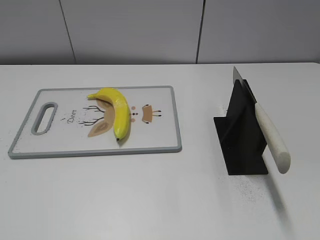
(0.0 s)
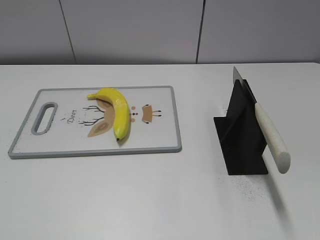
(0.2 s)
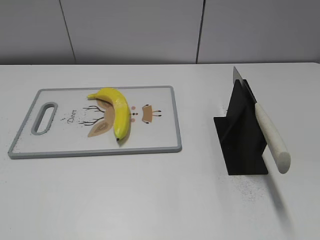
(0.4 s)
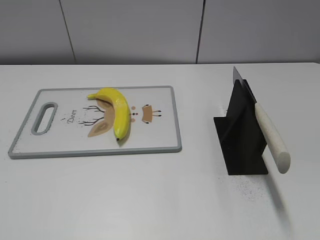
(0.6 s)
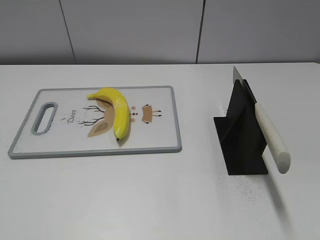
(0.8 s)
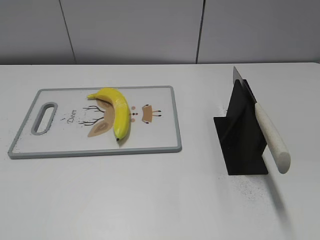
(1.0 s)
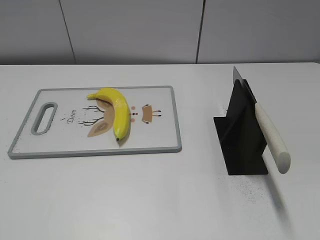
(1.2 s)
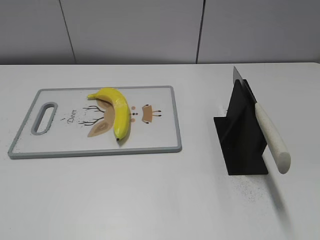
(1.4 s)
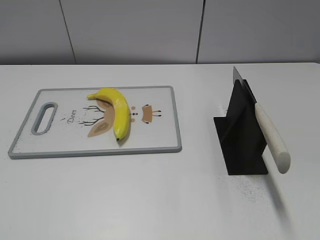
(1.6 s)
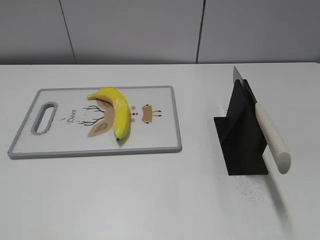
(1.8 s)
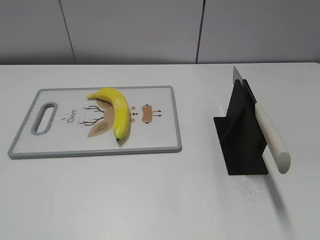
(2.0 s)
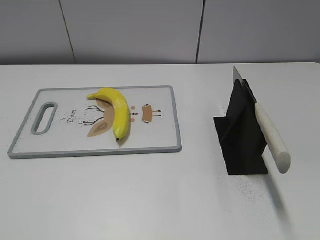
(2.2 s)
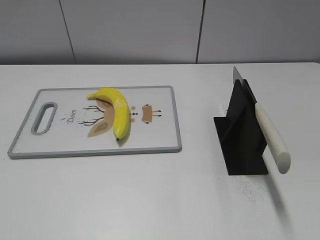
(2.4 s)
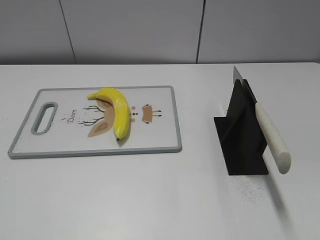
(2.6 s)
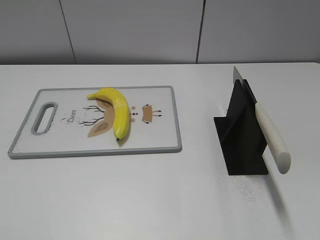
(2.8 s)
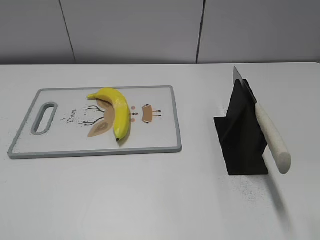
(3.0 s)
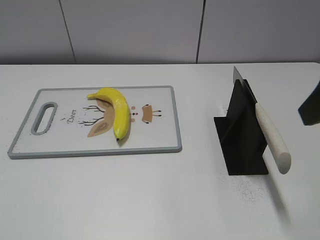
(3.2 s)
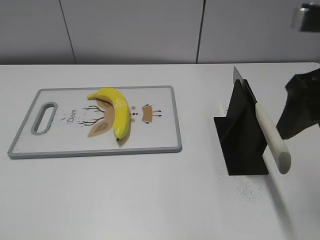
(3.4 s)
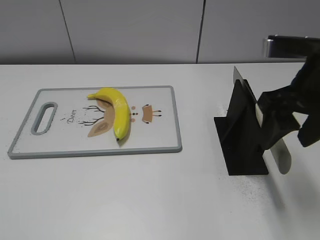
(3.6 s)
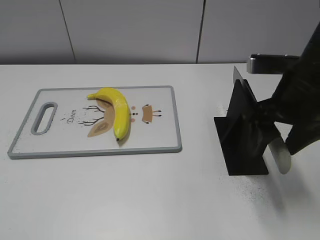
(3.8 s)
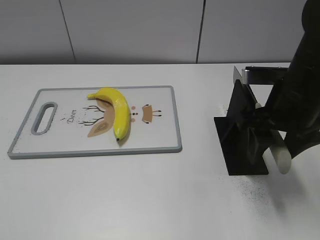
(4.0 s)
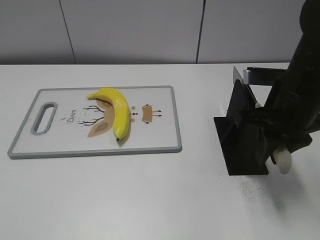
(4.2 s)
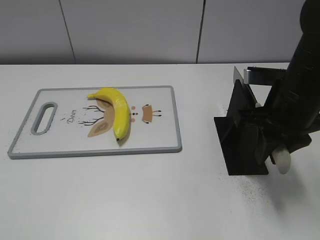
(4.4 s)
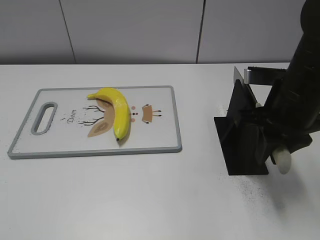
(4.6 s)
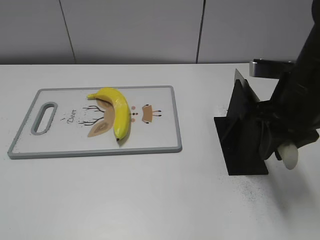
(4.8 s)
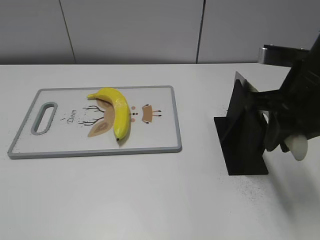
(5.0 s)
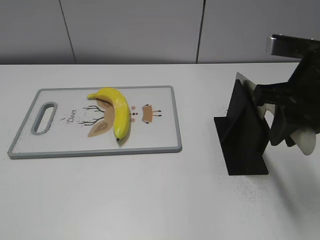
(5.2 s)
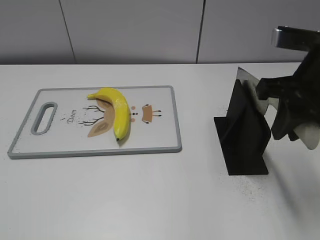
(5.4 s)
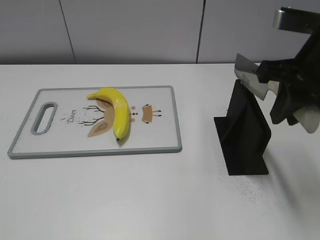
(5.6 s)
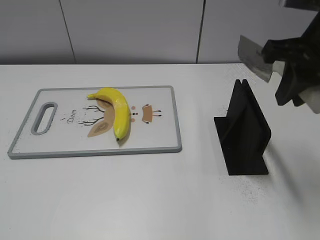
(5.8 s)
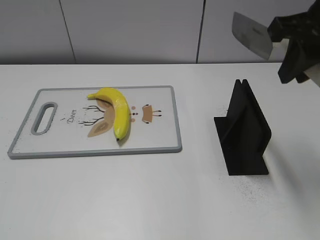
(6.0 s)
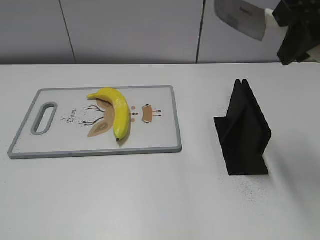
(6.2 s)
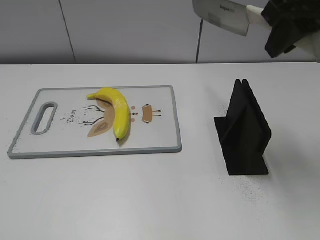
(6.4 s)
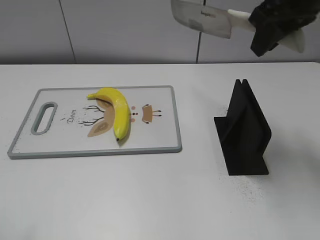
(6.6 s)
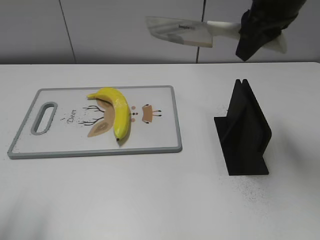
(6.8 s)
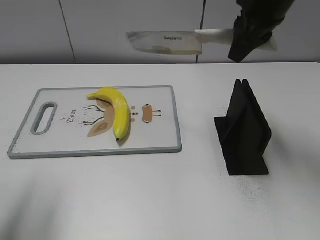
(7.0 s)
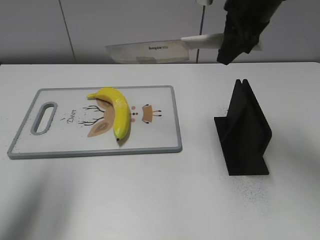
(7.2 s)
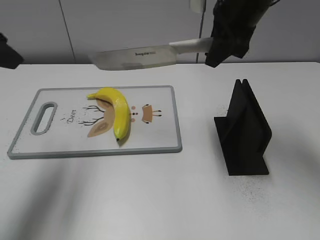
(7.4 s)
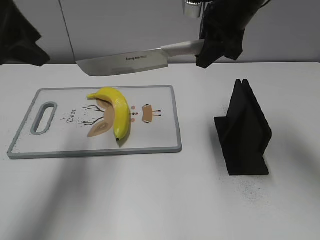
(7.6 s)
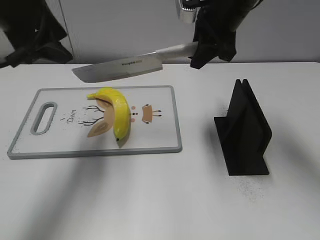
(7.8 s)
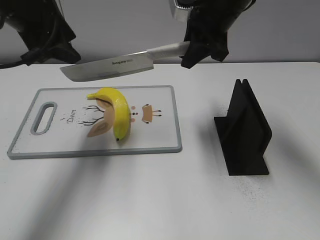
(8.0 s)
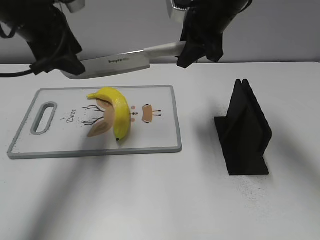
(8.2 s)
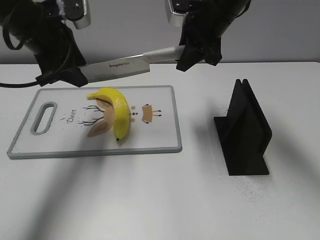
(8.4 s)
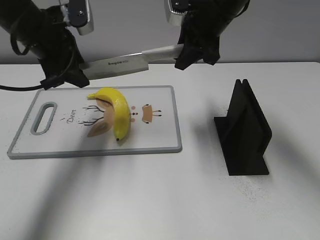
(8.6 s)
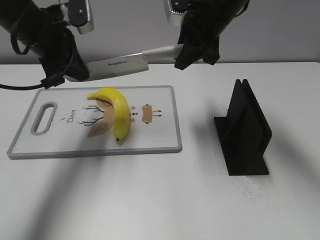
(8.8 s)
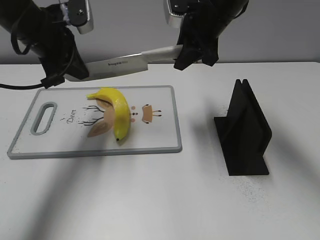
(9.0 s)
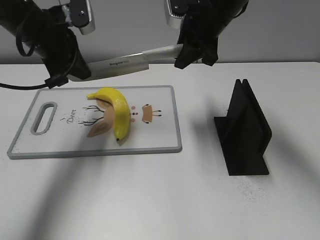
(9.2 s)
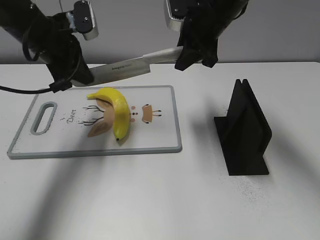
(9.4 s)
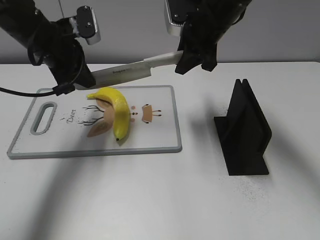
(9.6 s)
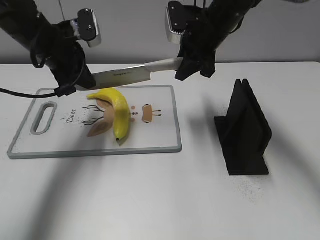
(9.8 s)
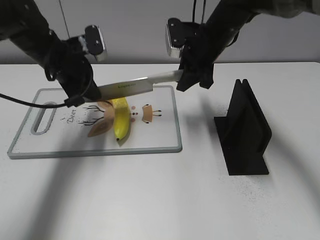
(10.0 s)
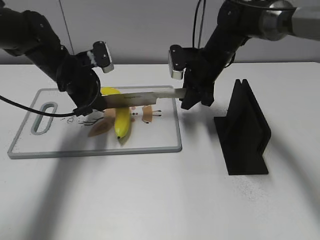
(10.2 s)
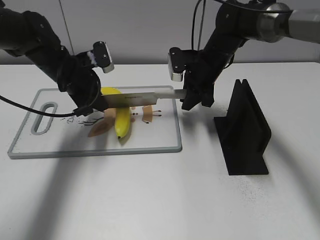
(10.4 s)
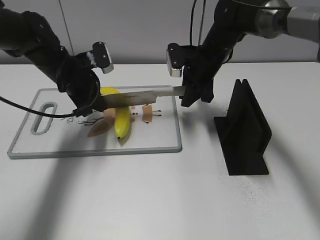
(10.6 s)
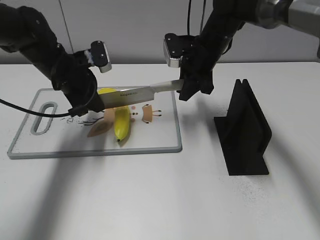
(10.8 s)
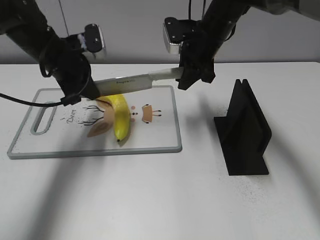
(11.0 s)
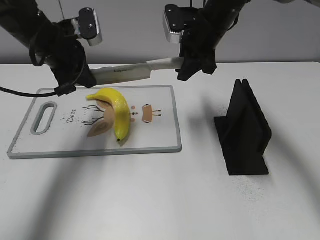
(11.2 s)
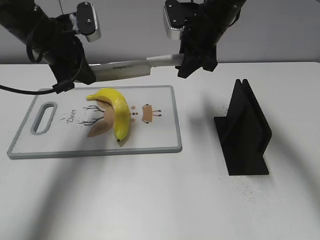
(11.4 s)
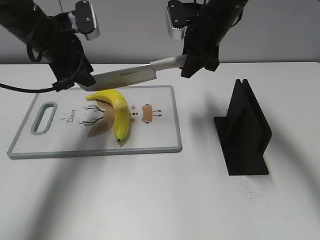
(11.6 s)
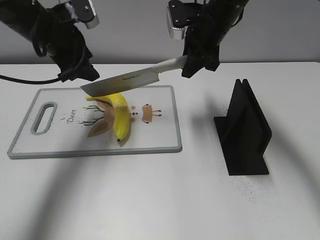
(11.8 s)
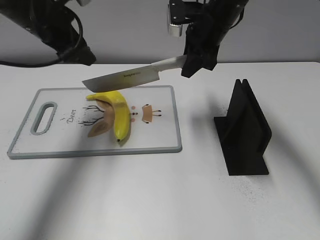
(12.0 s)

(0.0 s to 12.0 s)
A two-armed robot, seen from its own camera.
Task of the whole recording: cut plastic banana.
Step, 0.0 s - 5.6 s: Grab the knife handle with your right hand.
Step, 5.8 s - 11.0 s: Lift the knife with your right hand.
3.0 s - 4.4 s: The right gripper is displaced downward, forward and to the left by about 20 cm, and closes its fingers.
4.4 s - 6.0 s: The right gripper shifts about 15 cm upward.
6.0 s - 7.6 s: The left gripper is displaced forward by about 30 cm, while the right gripper is displaced forward and to the left by about 15 cm.
7.6 s - 9.0 s: The left gripper moves forward and downward, some 10 cm, and closes its fingers.
9.0 s - 10.4 s: Both grippers move downward, about 10 cm.
10.4 s - 12.0 s: Both grippers move upward, roughly 10 cm. The left gripper opens up.

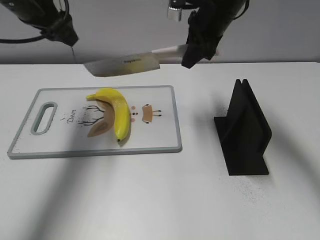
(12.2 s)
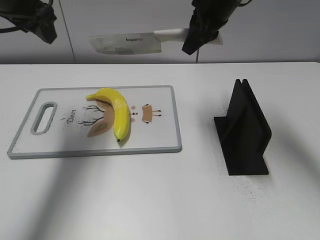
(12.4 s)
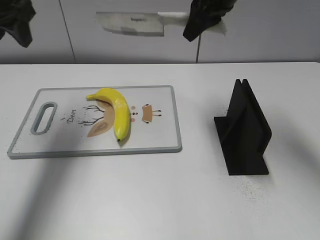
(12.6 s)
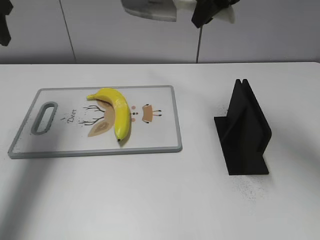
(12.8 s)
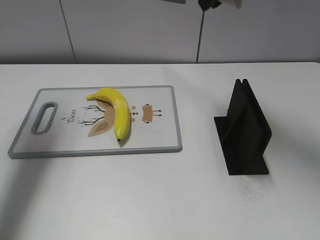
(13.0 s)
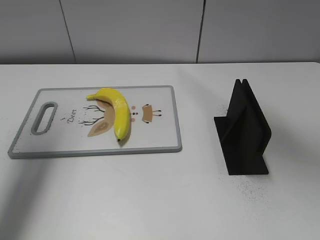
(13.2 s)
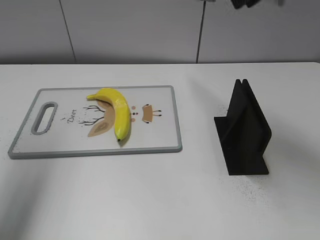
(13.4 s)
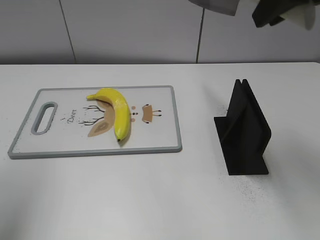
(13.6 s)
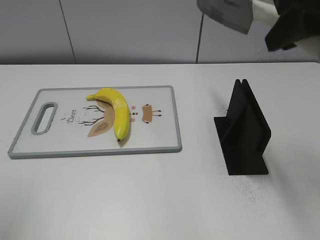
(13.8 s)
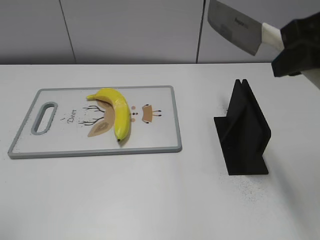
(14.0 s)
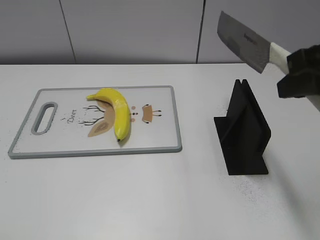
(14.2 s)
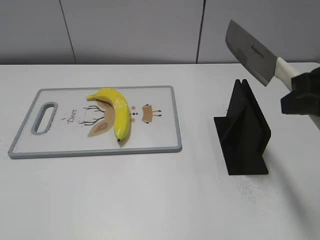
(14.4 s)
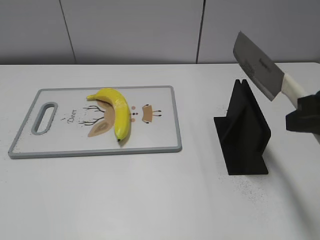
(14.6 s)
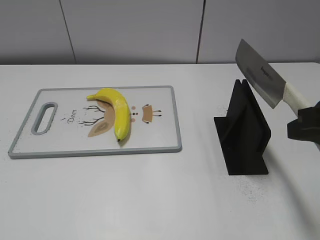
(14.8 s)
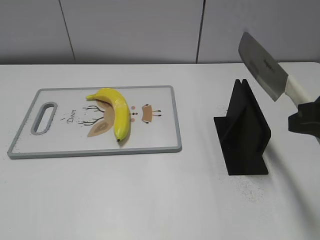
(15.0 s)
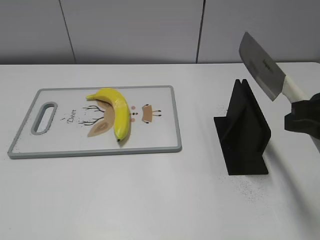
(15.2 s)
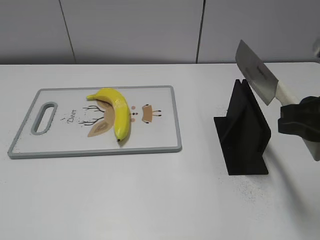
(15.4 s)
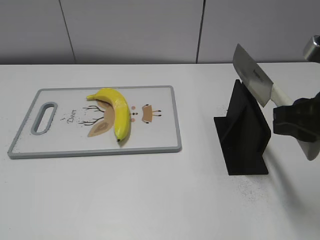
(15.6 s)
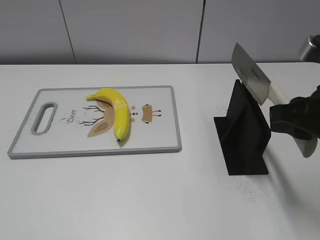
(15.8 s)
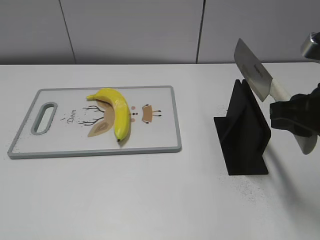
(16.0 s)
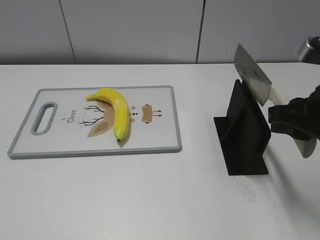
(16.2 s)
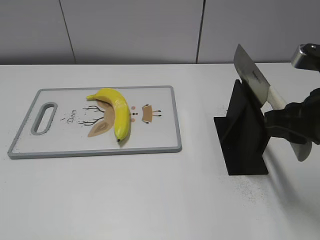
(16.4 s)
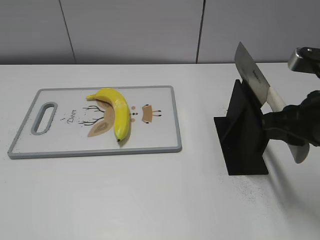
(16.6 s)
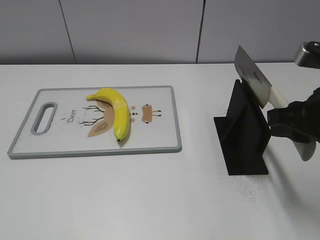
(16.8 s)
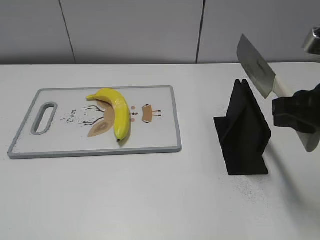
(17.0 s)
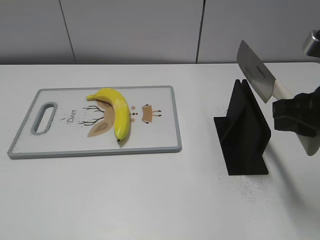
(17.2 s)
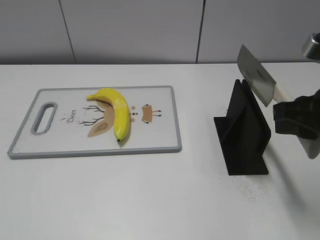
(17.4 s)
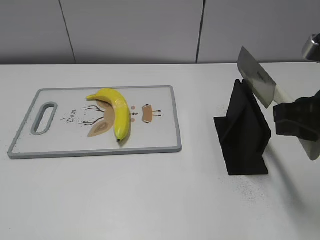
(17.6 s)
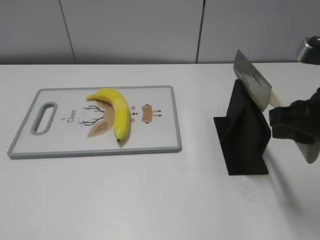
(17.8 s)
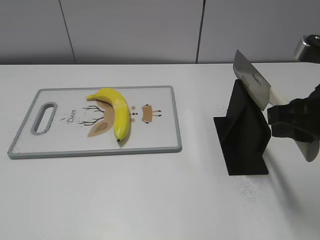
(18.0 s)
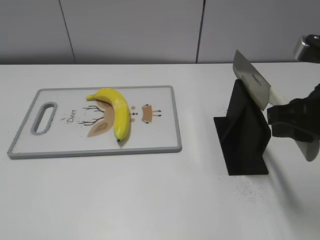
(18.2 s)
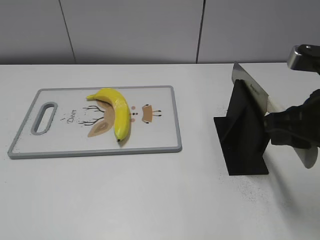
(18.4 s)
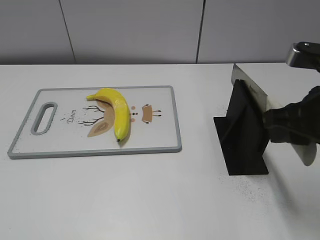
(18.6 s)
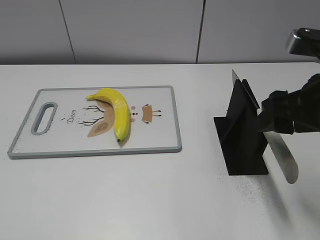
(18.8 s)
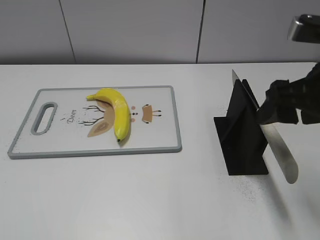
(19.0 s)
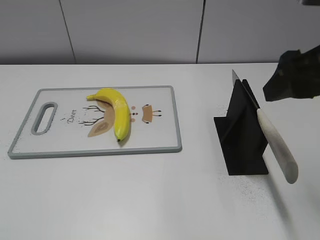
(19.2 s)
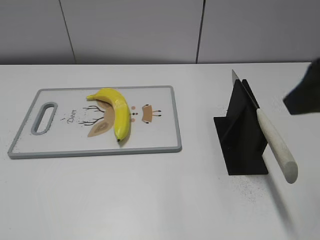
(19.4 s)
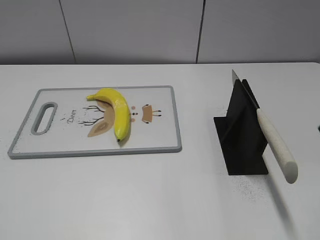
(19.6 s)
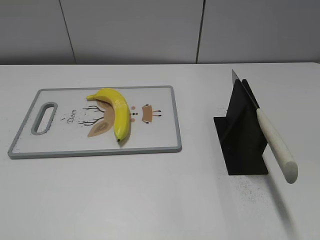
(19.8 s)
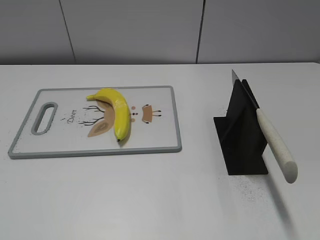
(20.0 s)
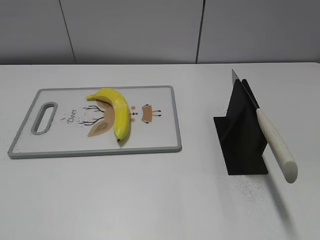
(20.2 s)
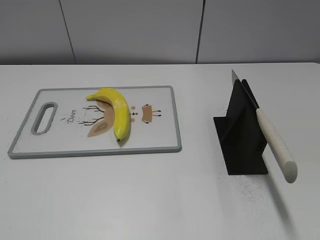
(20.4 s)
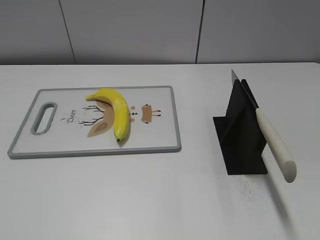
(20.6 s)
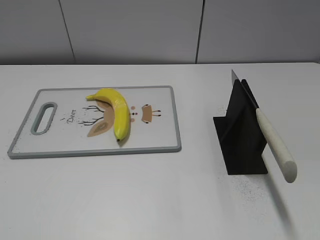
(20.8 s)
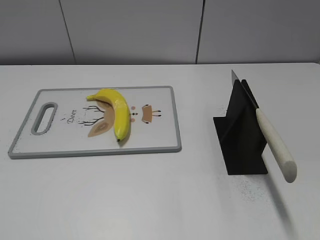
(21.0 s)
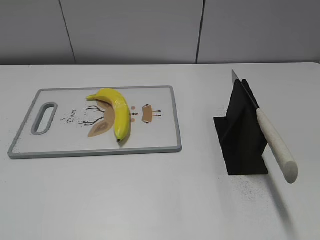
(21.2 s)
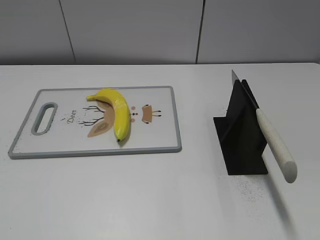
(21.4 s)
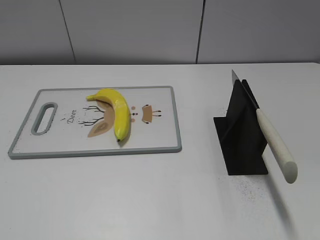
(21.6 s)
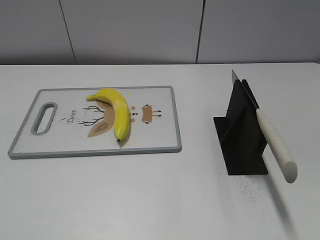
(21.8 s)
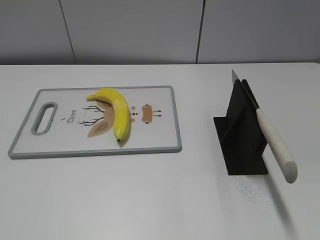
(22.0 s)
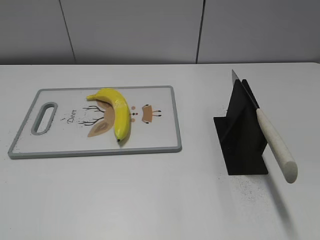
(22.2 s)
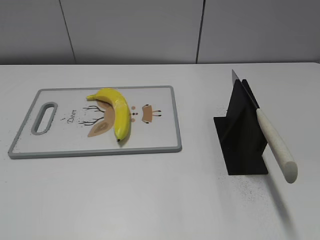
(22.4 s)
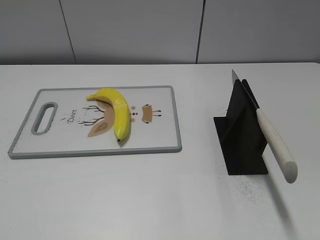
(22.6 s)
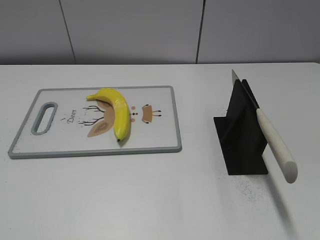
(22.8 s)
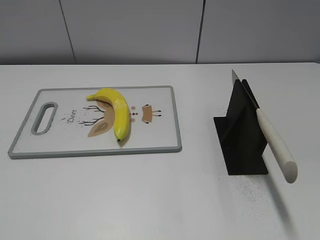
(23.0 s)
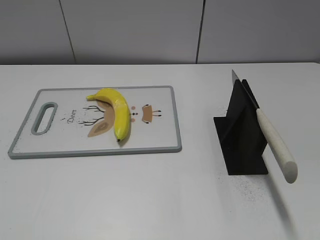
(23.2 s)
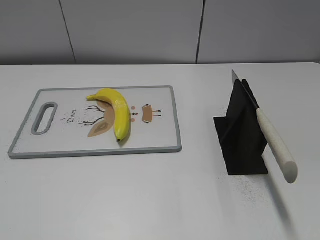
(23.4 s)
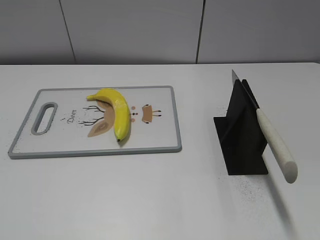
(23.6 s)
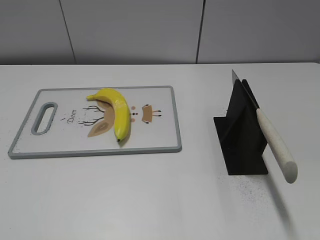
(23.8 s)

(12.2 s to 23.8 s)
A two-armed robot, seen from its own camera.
Task of the whole recording: cut plastic banana.
Step, 13.2 s - 14.2 s: Secure the blade with your left hand.
Step, 14.6 s - 23.2 s: Place the knife on the storage rack with your right hand.
12.2 s - 13.6 s: The left gripper moves backward, upward and to the left, roughly 25 cm. The right gripper is displaced backward, upward and to the right by some 20 cm.
13.6 s - 15.0 s: The right gripper shifts roughly 20 cm backward, downward and to the right, while the left gripper shifts roughly 25 cm backward and downward.
15.0 s - 16.6 s: The right gripper shifts by approximately 5 cm.
16.6 s - 18.0 s: There are only small adjustments of the grippers.
18.0 s - 19.4 s: The right gripper shifts roughly 10 cm upward, and opens.
19.4 s - 21.0 s: The right gripper heads backward, covering some 20 cm.
22.4 s - 23.8 s: Both grippers stay about where they are.
